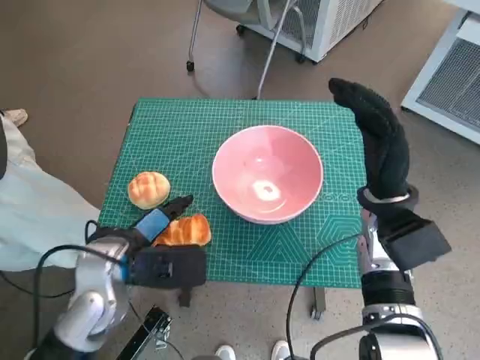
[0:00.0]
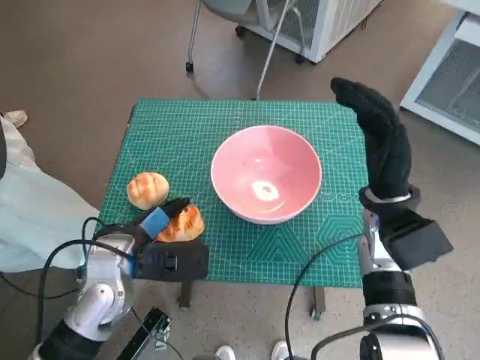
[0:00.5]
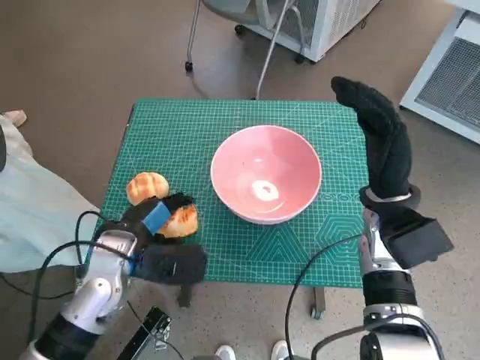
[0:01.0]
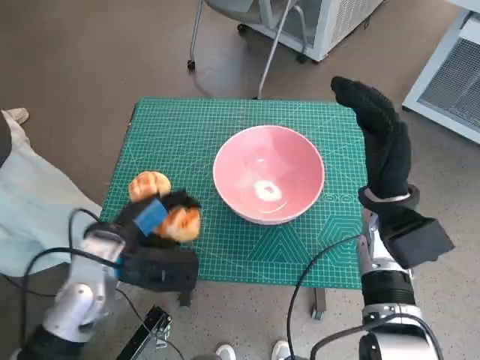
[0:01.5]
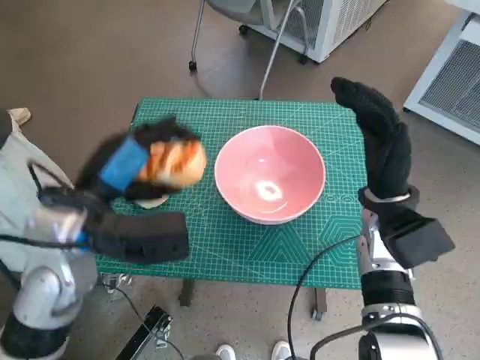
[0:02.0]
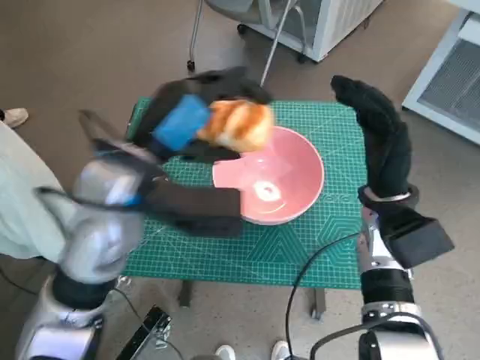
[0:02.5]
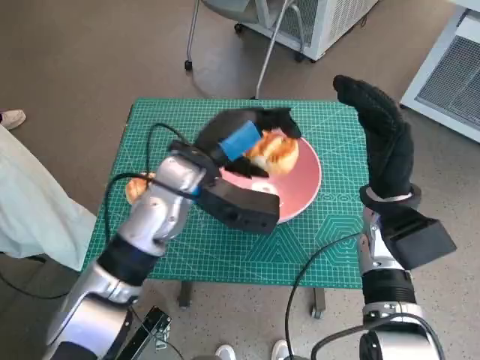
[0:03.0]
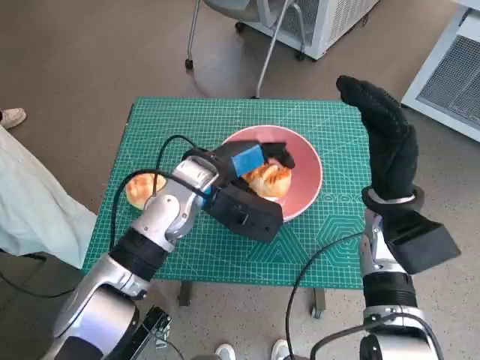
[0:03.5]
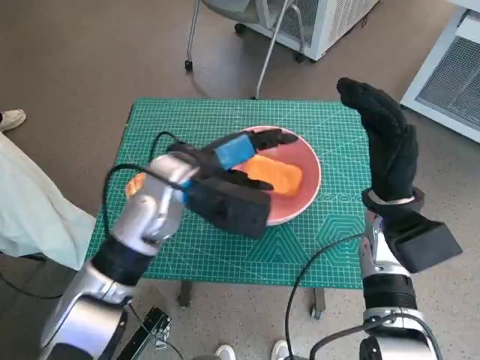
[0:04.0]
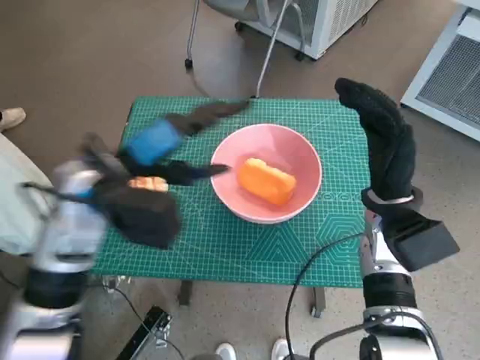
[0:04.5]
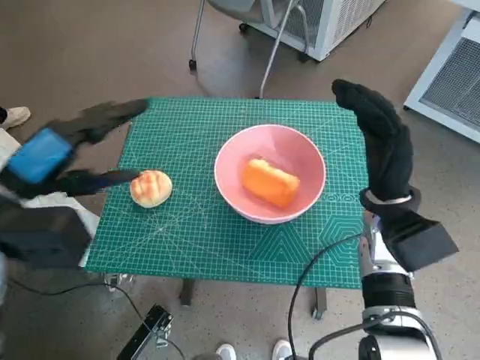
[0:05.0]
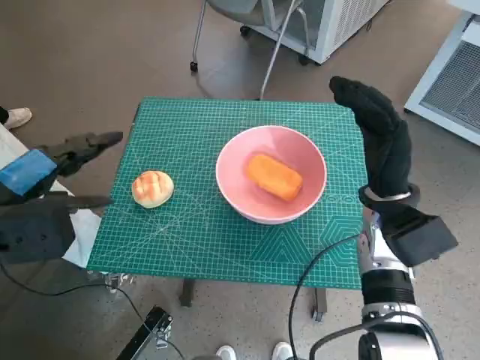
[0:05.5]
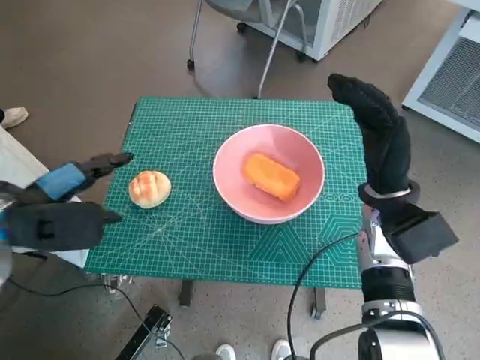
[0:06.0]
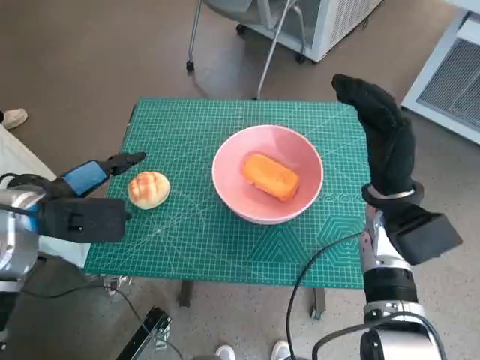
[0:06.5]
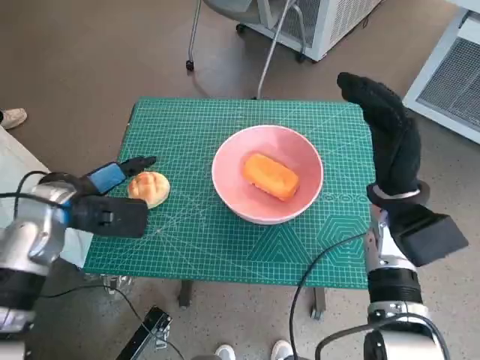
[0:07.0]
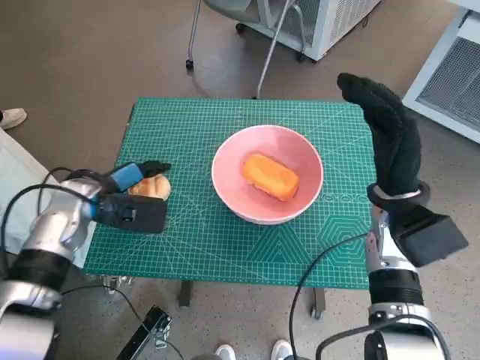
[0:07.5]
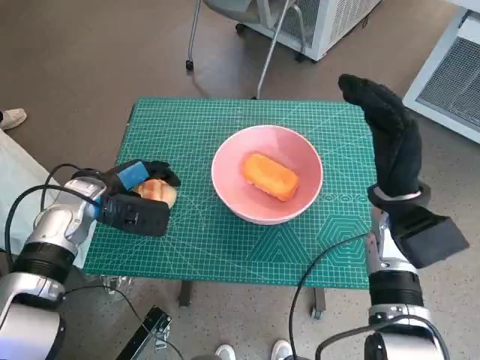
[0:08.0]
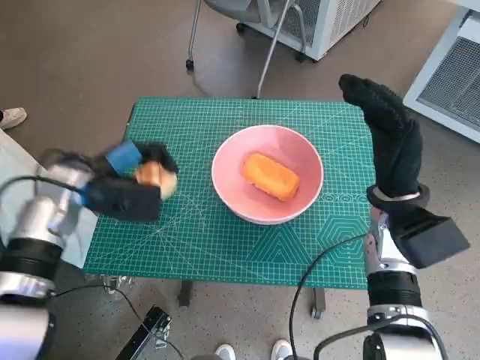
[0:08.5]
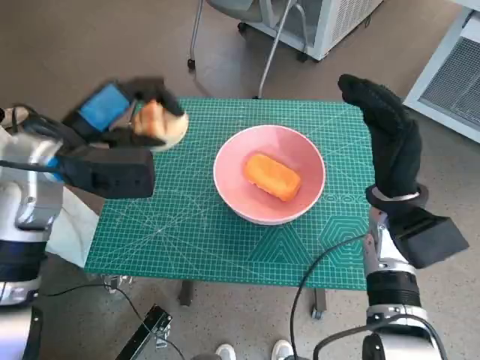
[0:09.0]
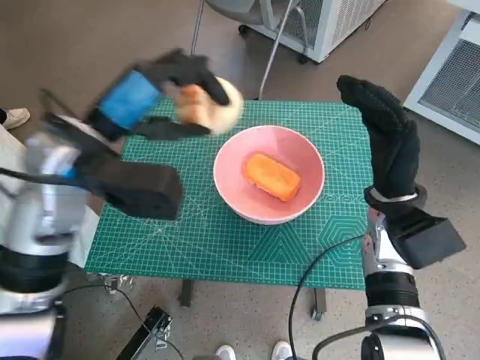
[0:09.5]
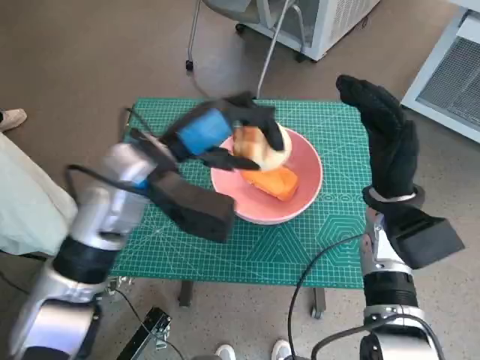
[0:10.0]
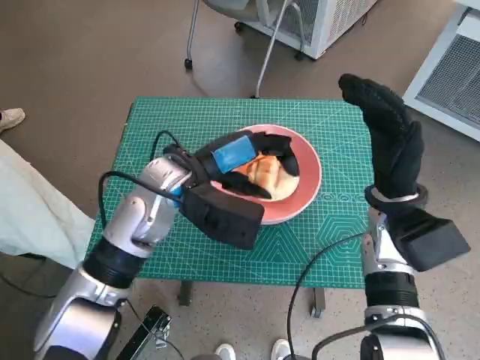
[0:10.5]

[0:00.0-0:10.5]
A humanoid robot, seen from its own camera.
Task of the whole recording: Push the bowl to the center of the table and put the bread into the bowl.
Step, 0:01.0 to 0:04.0: Place the long bread in pink bowl with left hand.
Step, 0:04.5 to 0:07.5: Grasp the round bread with left hand.
0:00.0 to 0:02.0: The left hand goes some 10 cm upward.
0:02.0 to 0:04.0: The left hand travels to the right and forward by roughly 10 cm.
0:04.0 to 0:06.5: The left hand travels to the left by some 20 cm.
0:06.5 to 0:08.5: The left hand goes approximately 5 cm forward.
0:08.5 to 0:10.5: The left hand goes approximately 15 cm to the right.

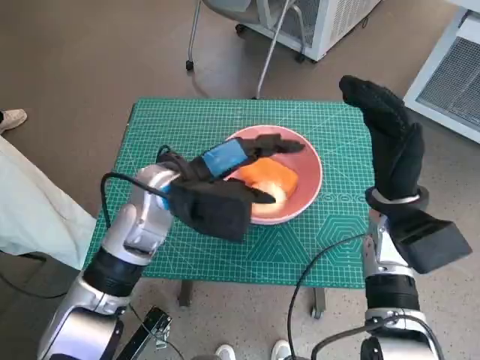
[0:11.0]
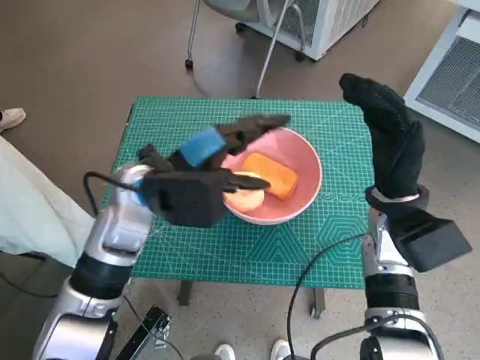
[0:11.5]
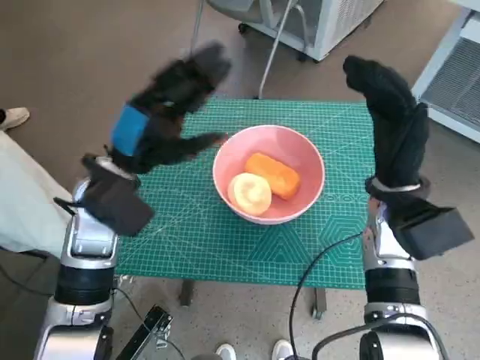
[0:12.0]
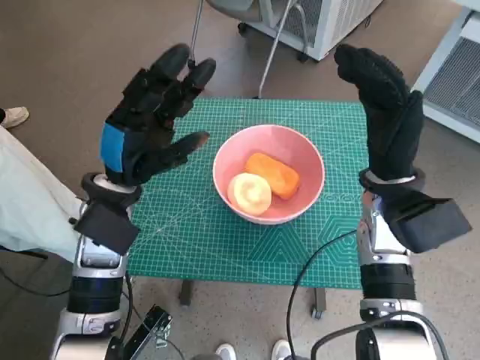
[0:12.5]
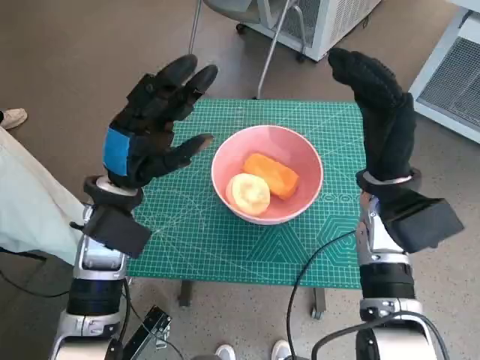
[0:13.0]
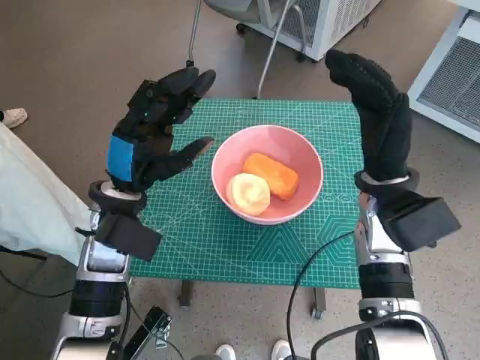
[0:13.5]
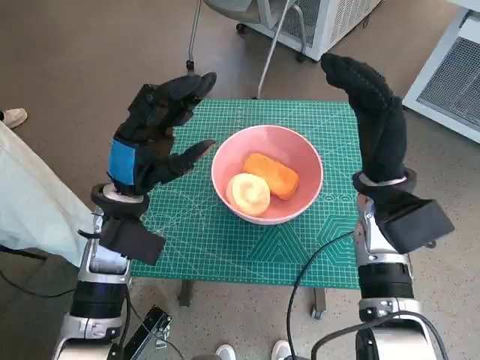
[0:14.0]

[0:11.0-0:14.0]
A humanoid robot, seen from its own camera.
Task of the whole recording: Push the bowl to the center of the table and put the bread into the bowl.
0:11.0 to 0:12.5: The left hand is displaced to the left by some 5 cm.
0:12.5 to 0:14.0: The hands move only a little.

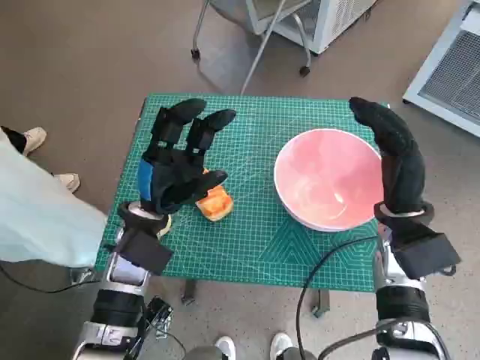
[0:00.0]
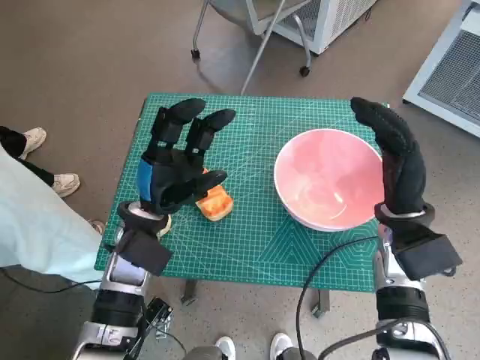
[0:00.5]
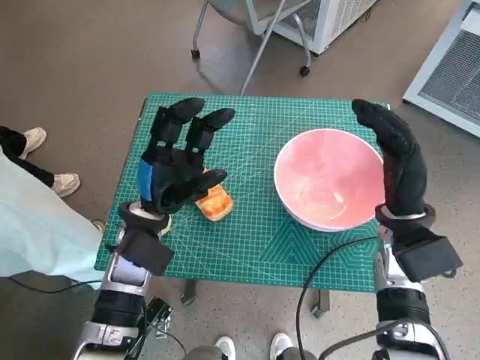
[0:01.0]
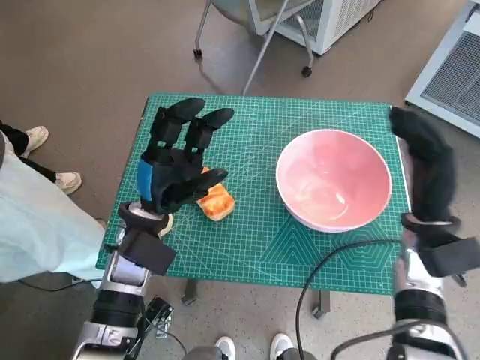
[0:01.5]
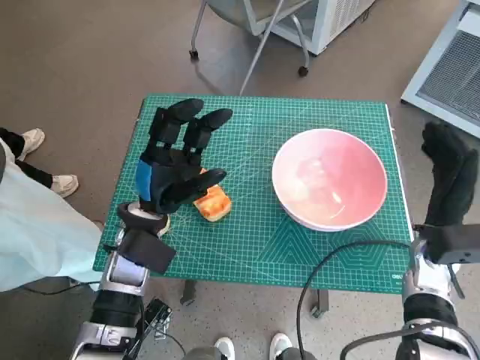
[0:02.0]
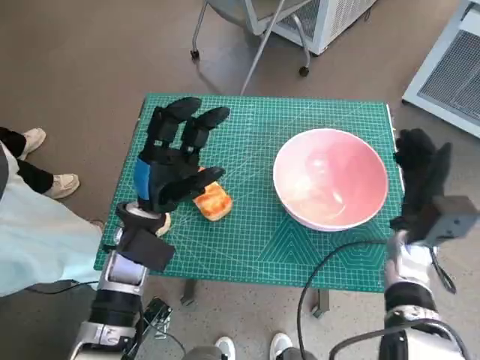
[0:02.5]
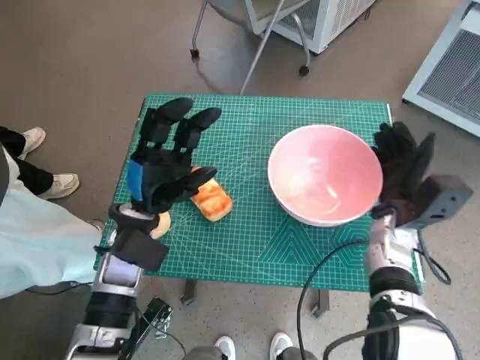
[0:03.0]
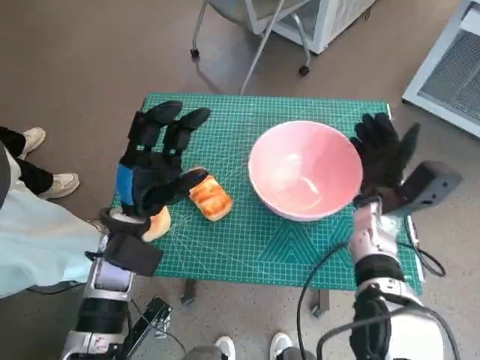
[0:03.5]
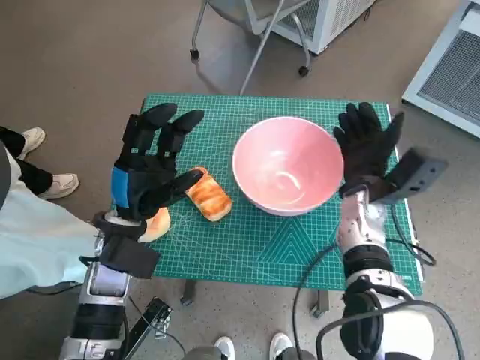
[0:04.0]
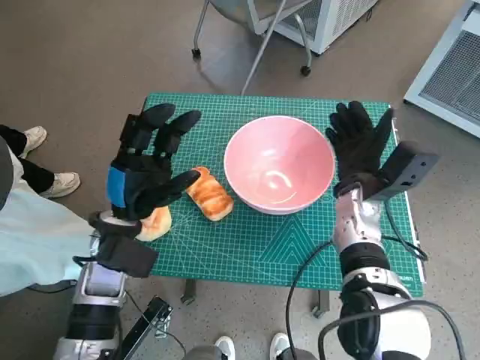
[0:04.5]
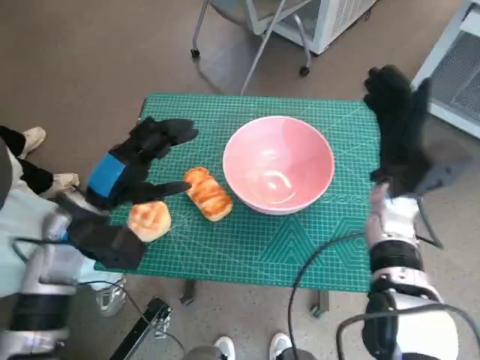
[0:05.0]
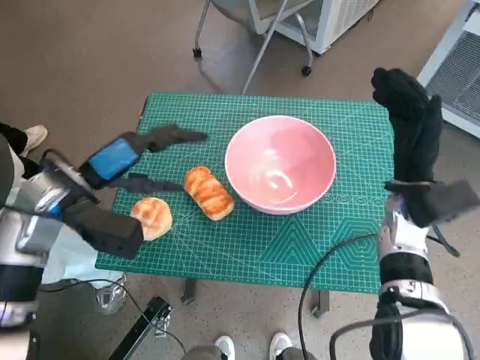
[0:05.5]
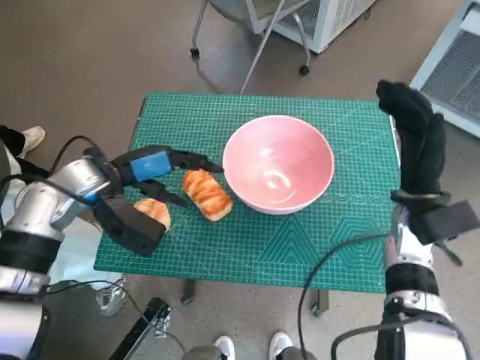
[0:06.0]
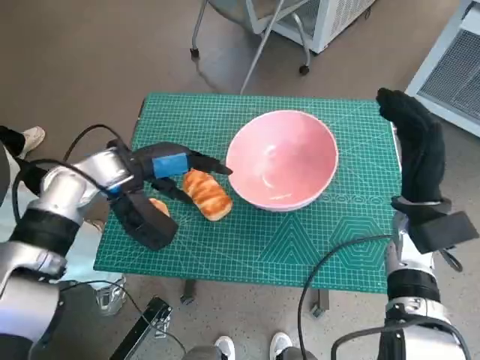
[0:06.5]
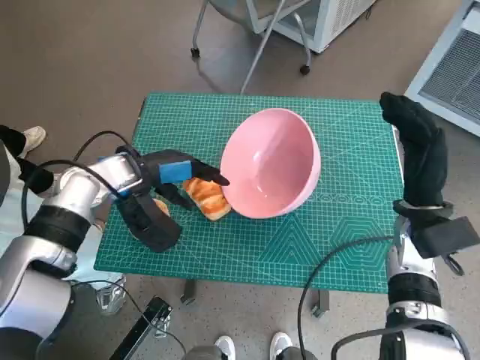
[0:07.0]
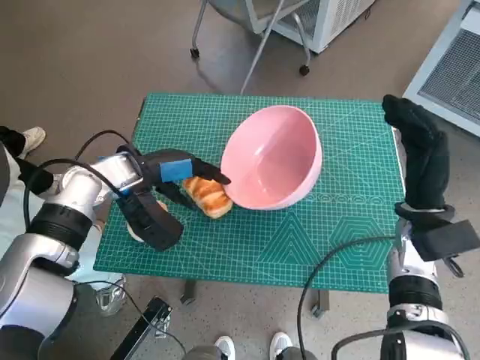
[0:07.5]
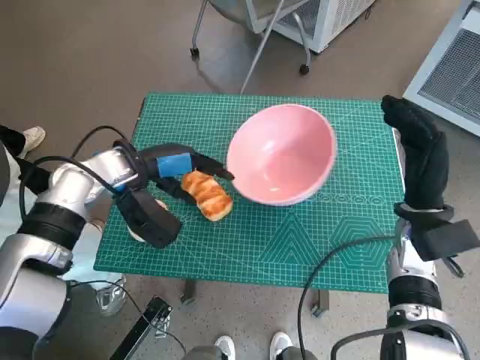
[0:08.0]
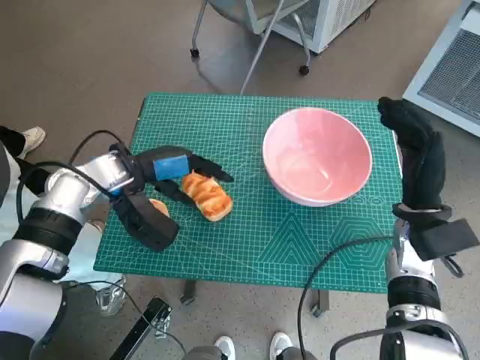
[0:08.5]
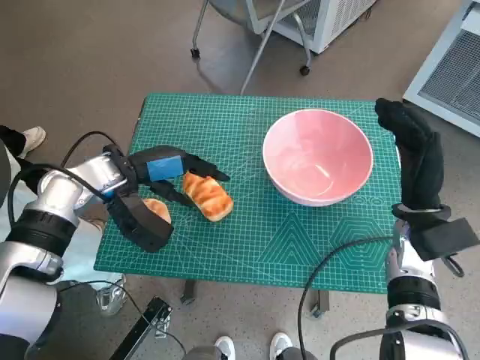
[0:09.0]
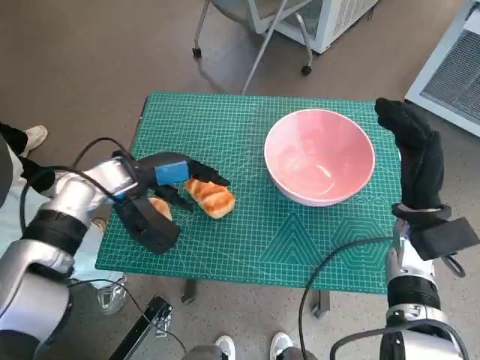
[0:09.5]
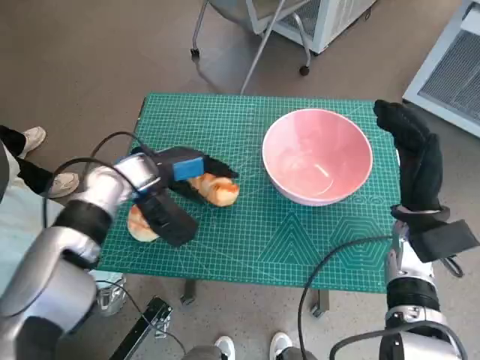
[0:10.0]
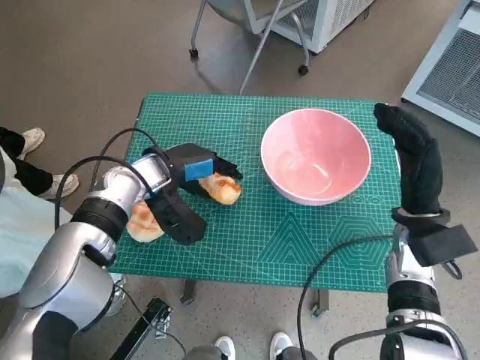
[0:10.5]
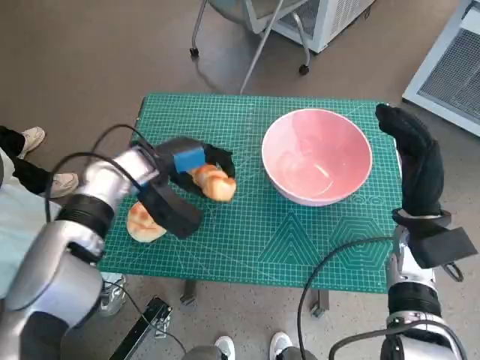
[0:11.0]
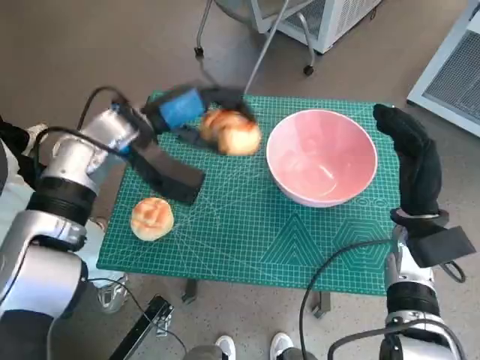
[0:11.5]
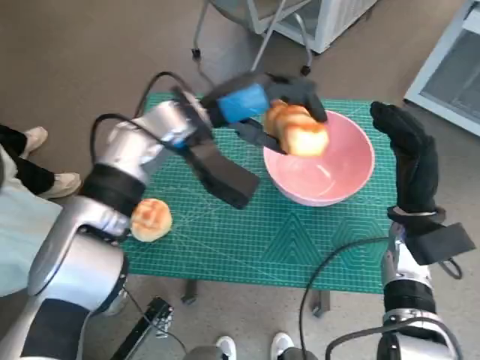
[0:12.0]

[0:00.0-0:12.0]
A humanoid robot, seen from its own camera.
Task of the whole recording: Push the bowl to the center of the table and put the bread into the bowl.
Step, 0:00.0 to 0:04.5: Move the pink bowl to the center of table with right hand.
Step, 0:05.0 to 0:10.0: Grasp the long bread with left hand.
0:02.0 to 0:04.0: The right hand goes approximately 10 cm to the left and forward.
0:04.0 to 0:06.0: The right hand travels to the right by approximately 5 cm. The left hand is displaced upward by approximately 5 cm.
0:10.0 to 0:12.0: The left hand heads upward and to the right, covering some 10 cm.
